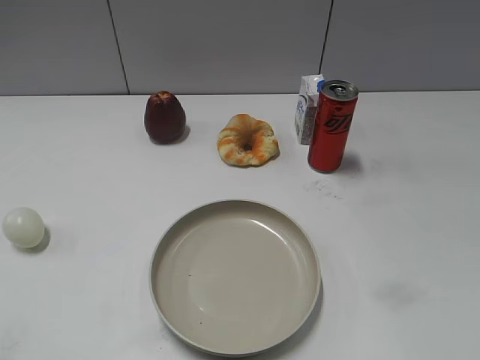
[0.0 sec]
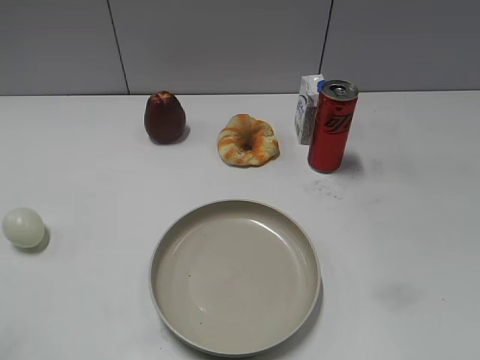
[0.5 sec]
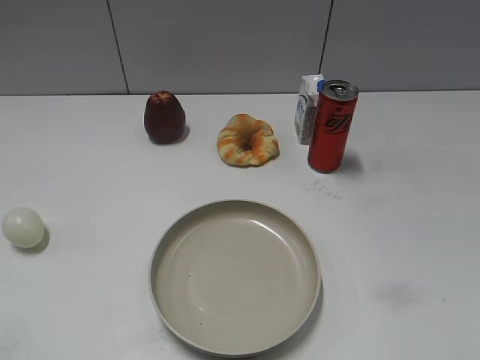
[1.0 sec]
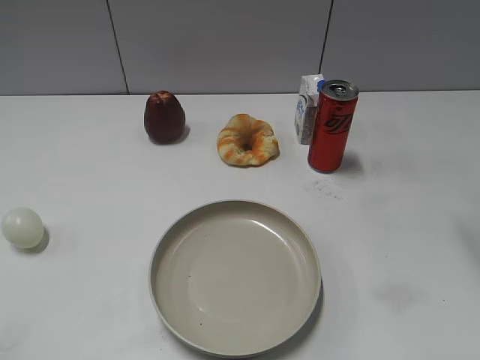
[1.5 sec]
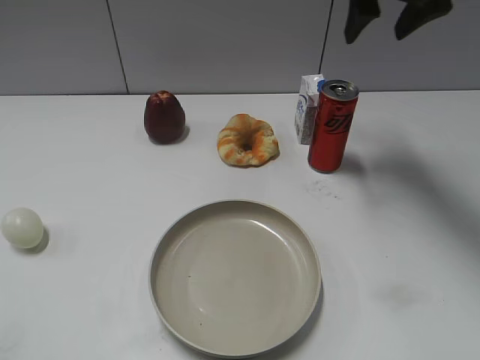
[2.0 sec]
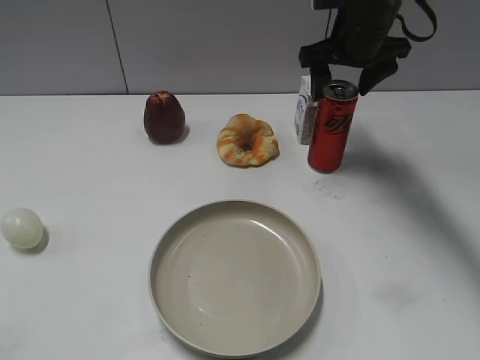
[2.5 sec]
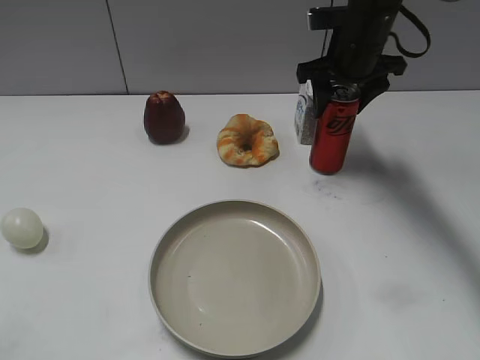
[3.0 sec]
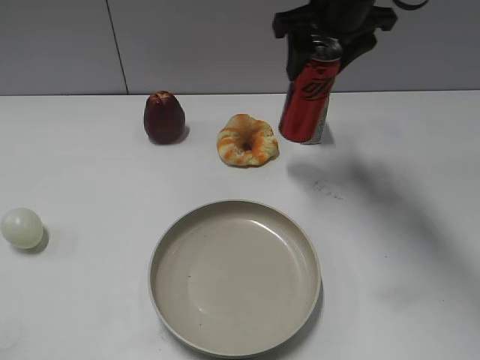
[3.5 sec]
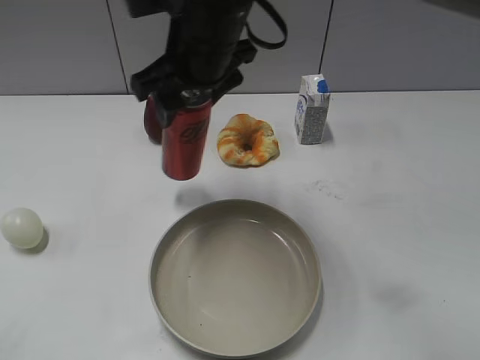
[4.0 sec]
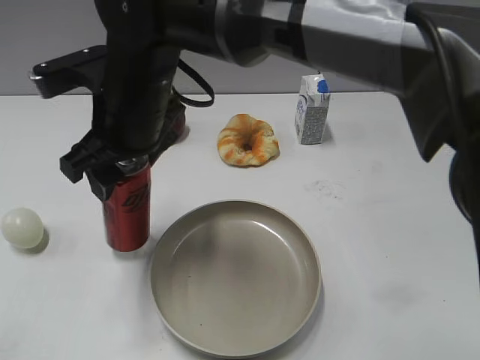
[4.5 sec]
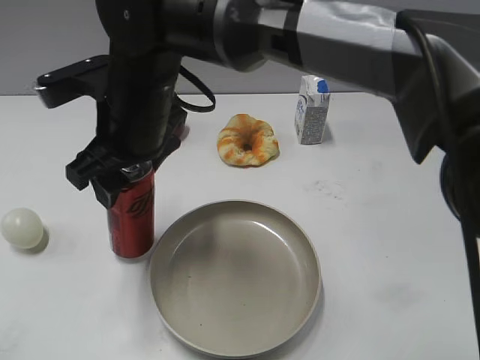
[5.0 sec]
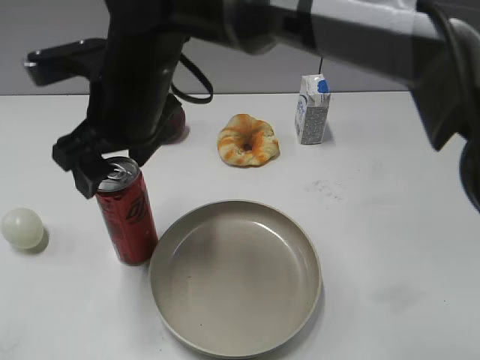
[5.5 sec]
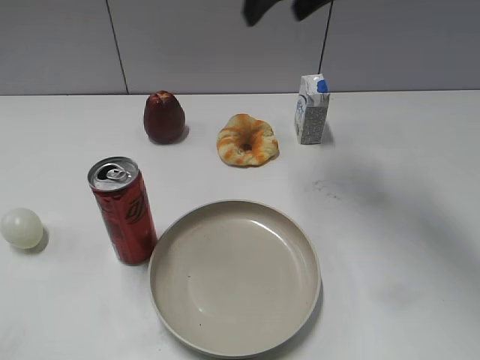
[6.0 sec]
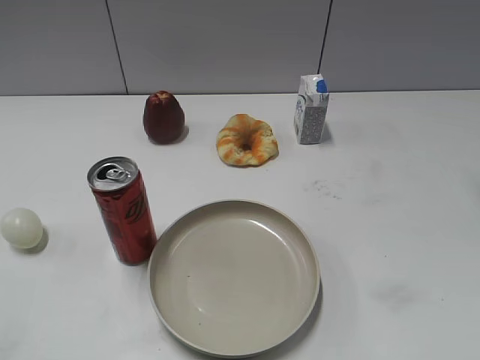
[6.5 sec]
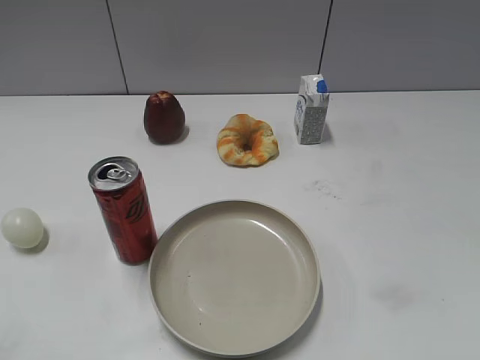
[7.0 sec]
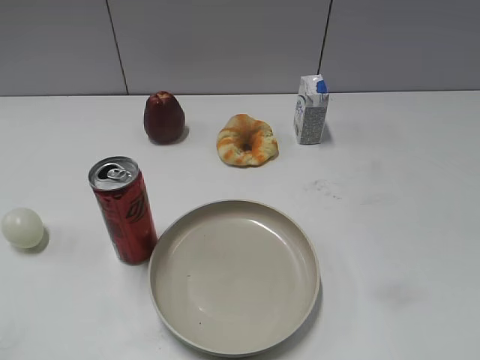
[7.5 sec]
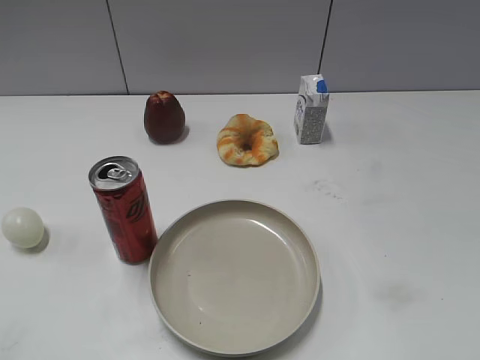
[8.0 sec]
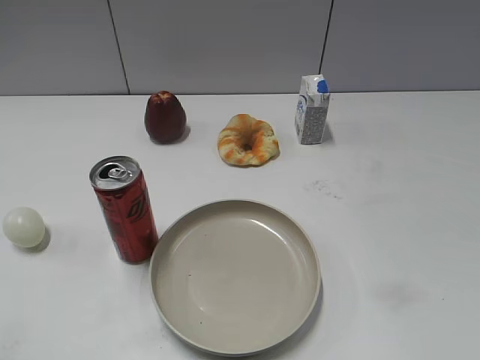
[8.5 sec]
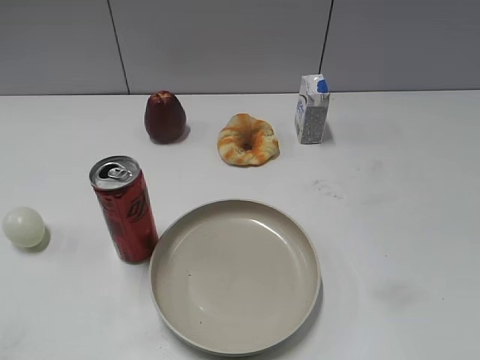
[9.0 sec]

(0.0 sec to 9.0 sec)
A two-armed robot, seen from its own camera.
Step, 1.0 sec - 2.5 sec: Grasp the cola with right gripper.
Step, 3.0 sec - 5.5 sec: Place the cola on the table with right gripper.
2.0 sec - 4.5 sec: The right gripper is displaced to the left and backward by some 30 cm, and closes.
4.5 sec - 7.0 sec: The right gripper goes approximately 40 cm to the right, and opens its fingers.
